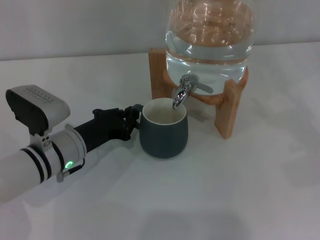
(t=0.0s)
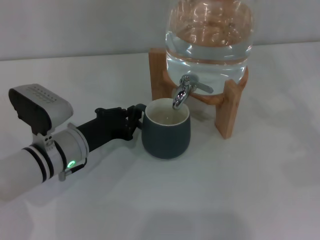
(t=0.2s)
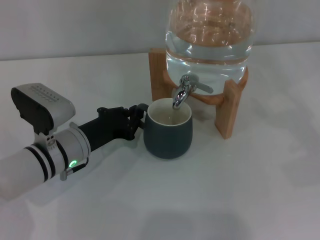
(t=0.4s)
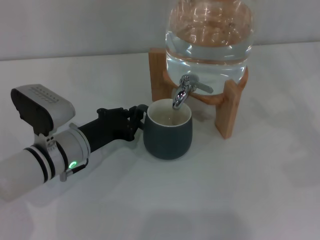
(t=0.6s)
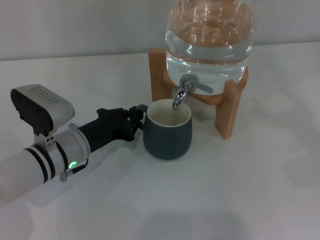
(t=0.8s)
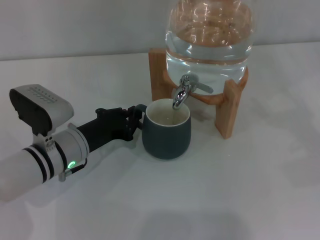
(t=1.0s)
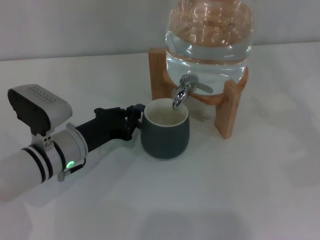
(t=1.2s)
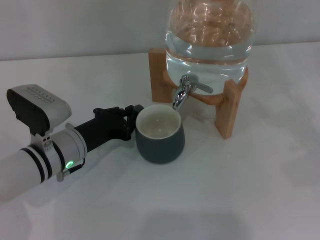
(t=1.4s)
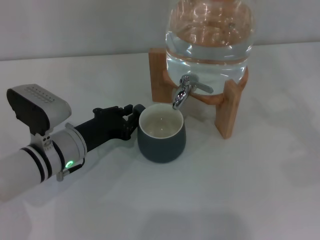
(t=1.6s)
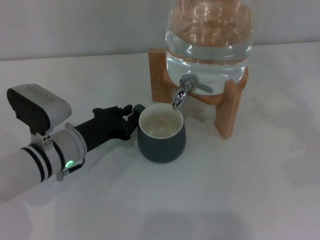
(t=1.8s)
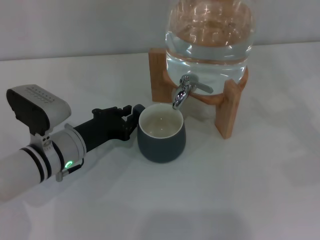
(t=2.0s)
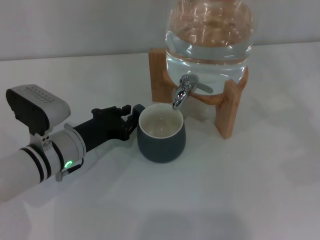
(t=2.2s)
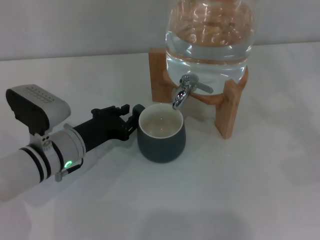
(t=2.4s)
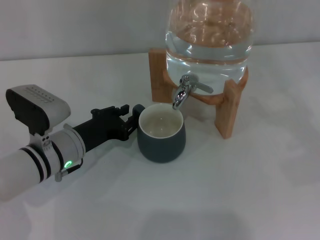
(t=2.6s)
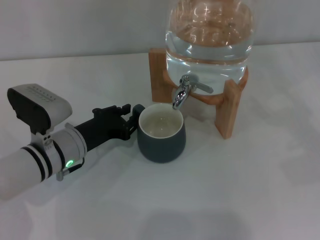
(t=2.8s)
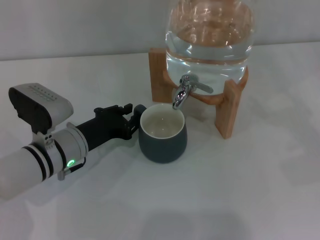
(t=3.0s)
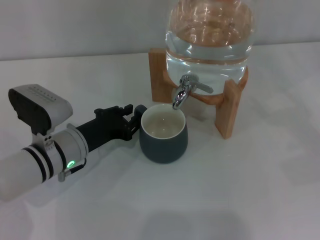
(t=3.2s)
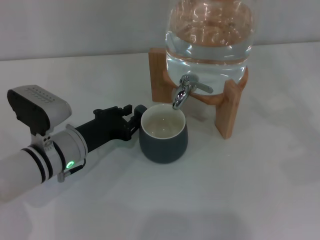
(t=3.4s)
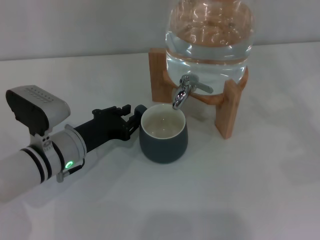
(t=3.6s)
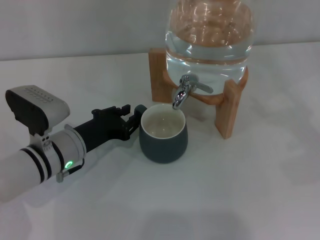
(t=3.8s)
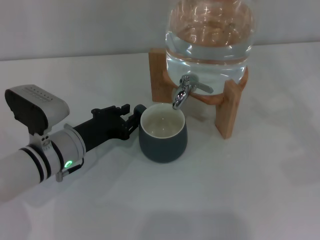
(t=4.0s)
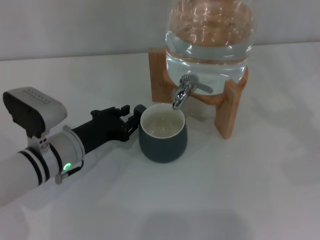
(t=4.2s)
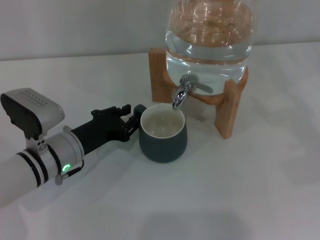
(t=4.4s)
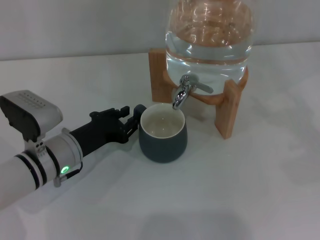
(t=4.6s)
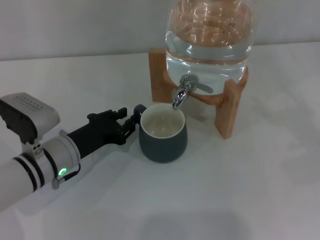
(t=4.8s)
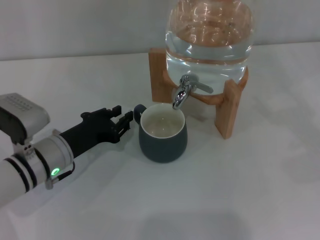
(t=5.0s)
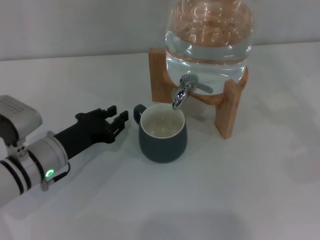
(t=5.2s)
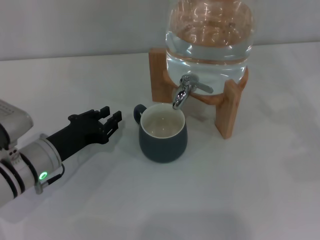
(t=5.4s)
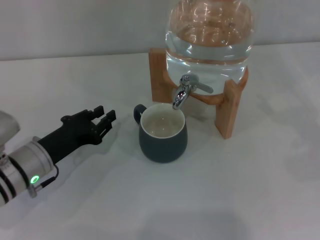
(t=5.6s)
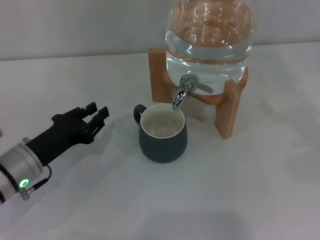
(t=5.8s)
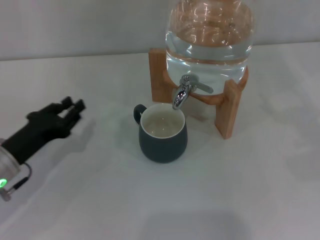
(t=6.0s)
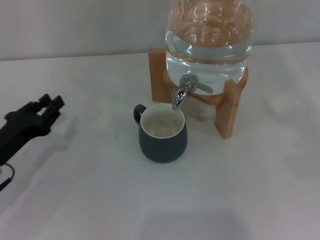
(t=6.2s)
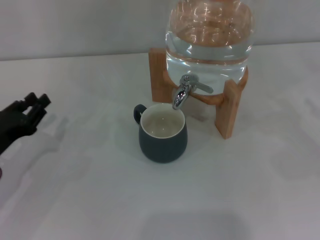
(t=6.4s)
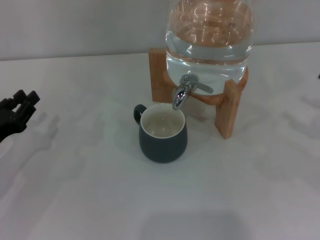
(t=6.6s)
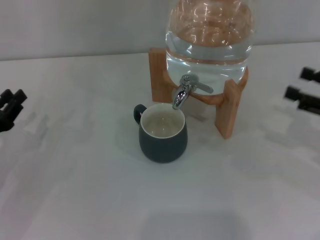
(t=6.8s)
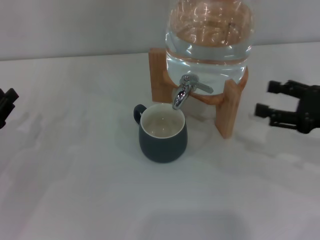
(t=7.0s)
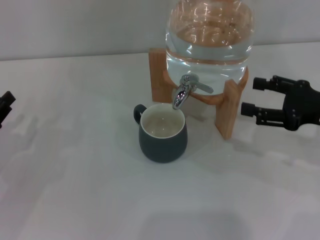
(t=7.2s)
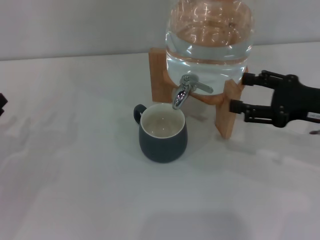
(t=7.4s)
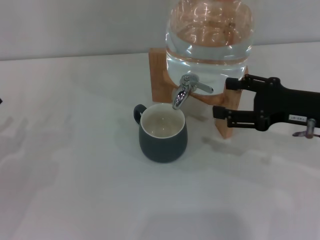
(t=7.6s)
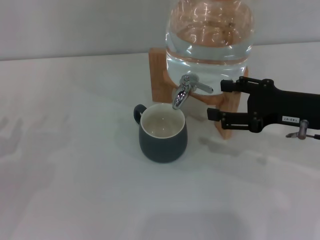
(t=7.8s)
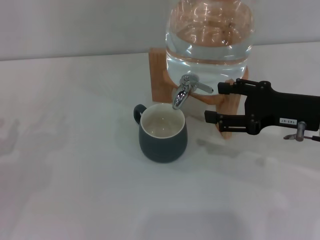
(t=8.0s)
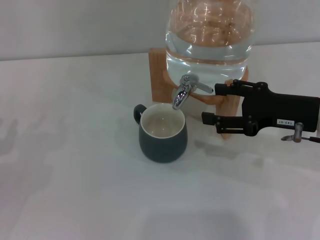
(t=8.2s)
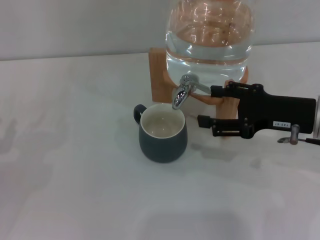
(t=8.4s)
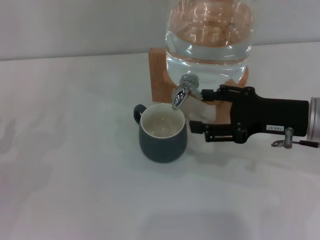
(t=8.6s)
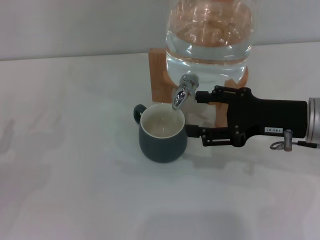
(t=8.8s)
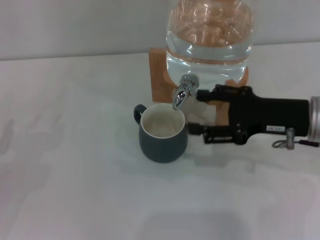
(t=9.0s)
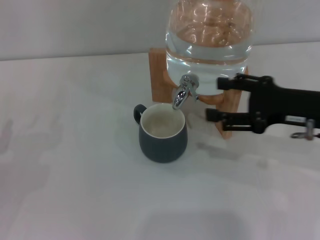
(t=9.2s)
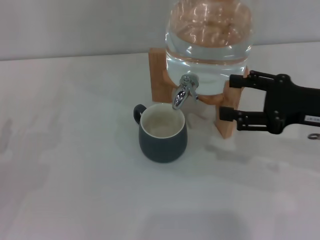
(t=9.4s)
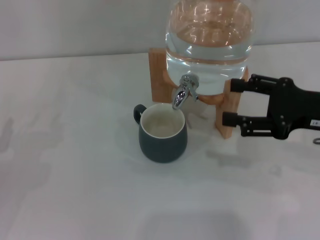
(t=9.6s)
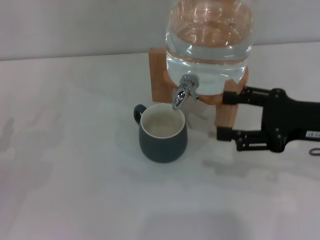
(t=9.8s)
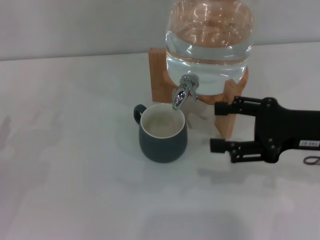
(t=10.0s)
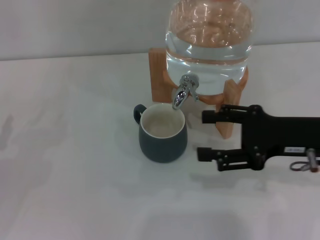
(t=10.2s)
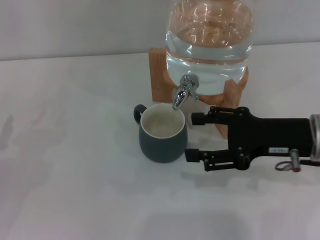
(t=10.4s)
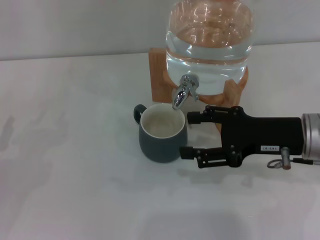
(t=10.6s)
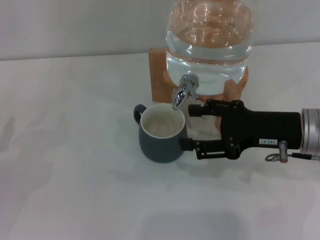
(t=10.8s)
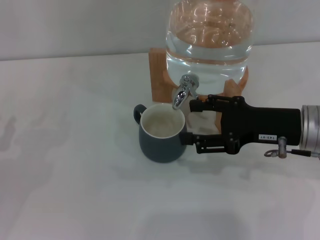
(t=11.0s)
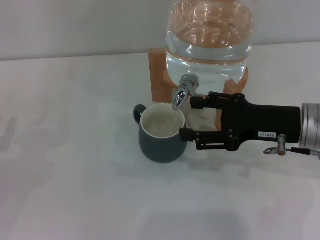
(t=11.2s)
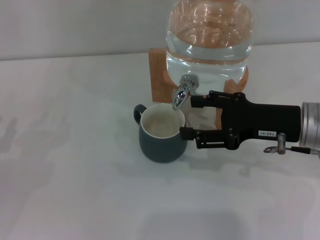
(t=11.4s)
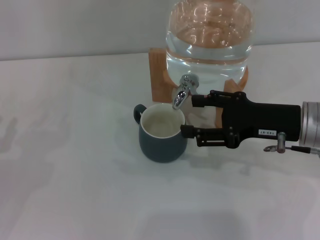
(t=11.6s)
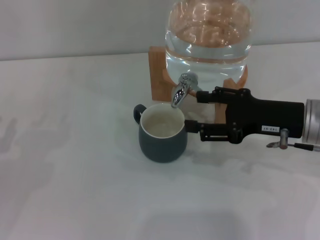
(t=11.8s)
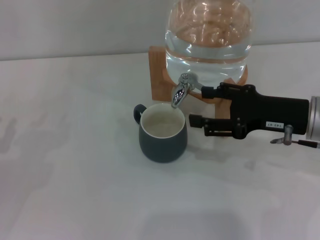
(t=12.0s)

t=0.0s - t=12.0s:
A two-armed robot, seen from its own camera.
Task of the whole recording: the left gripper pick up the black cup and place it horizontally under the faucet, the right gripper turn on the faucet to fill the cup, and then turn off the faucet.
Step, t=0.0s - t=5.6s: Move the cup beneath the water dispenser nozzle with the left gripper.
Step, t=5.8s - t=9.0s: Open the dispenser valve and fill the cup with water with the right gripper.
t=0.0s - t=4.4s: Both grippers stay about where they are.
t=4.4s - t=6.0s: The left gripper is displaced to the left by about 10 cm.
t=6.0s - t=7.6s: The left gripper goes approximately 10 cm to the left. The right gripper shifts some 15 cm to the left.
t=7.6s - t=12.0s: The grippers make only small movements.

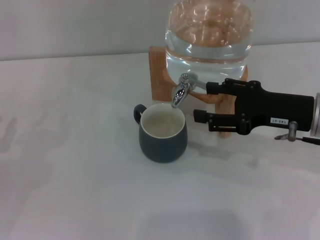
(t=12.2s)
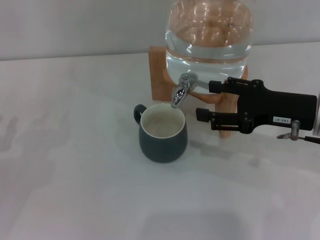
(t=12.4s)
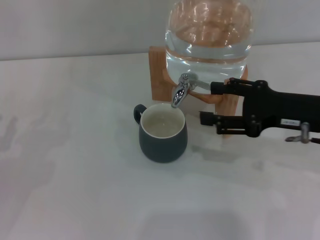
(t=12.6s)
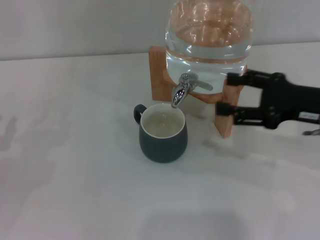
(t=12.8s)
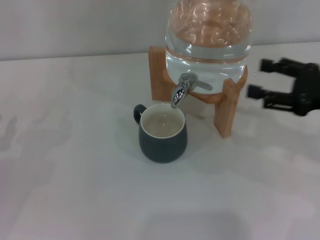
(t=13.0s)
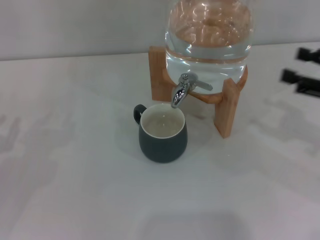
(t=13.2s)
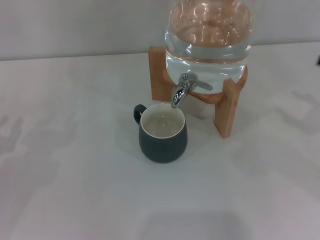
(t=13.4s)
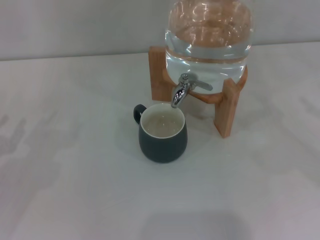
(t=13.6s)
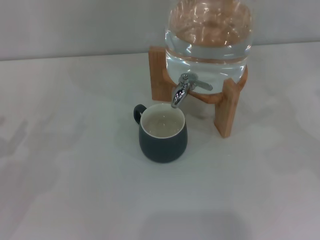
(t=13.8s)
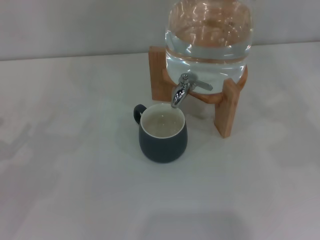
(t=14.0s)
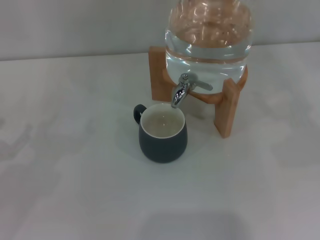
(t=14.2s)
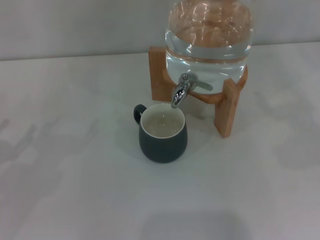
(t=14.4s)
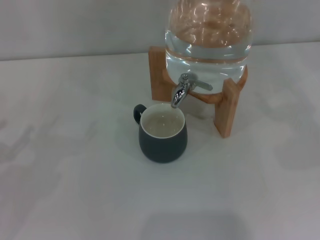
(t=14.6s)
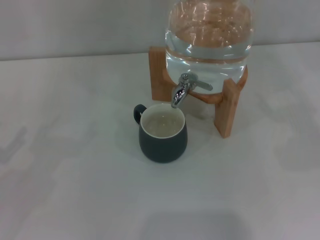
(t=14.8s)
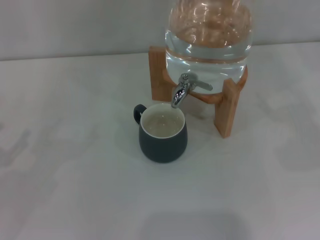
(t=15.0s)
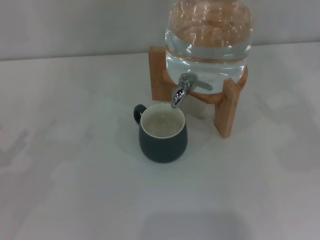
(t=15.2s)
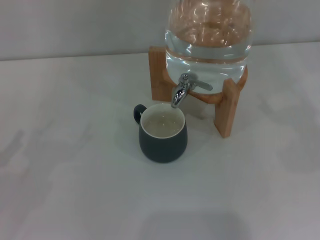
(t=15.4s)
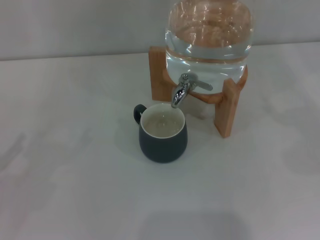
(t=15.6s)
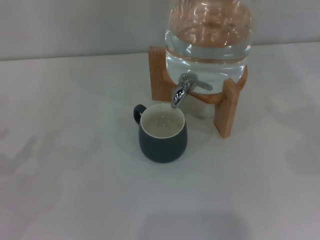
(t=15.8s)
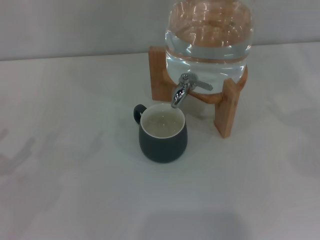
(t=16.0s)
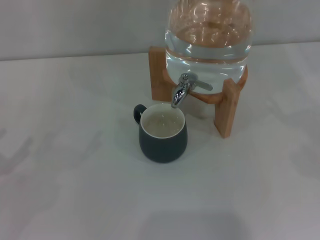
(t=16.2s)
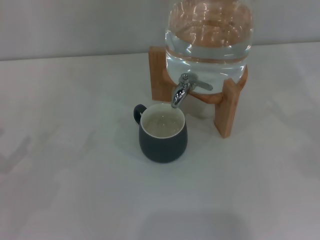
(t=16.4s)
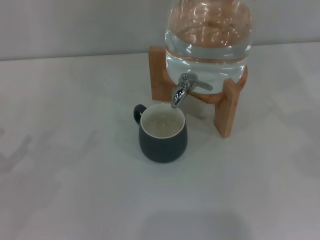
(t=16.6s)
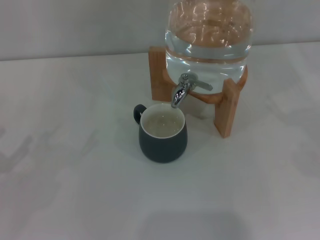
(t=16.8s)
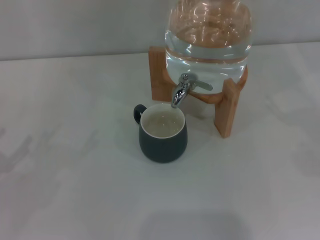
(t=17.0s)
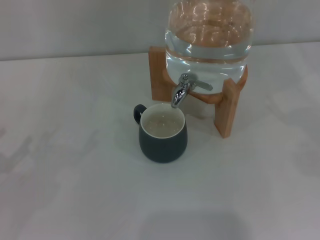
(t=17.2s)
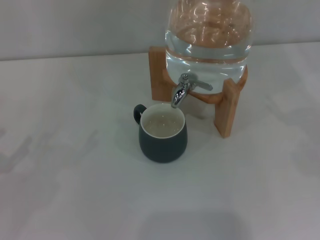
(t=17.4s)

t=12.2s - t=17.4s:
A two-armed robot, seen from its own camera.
Task of the whole recording: the left gripper pick up the black cup and place it horizontally under the faucet, the right gripper turn on the faucet to fill the cup, and then turn off the faucet.
t=12.2s - t=14.0s: The right gripper is displaced to the right by roughly 20 cm.
